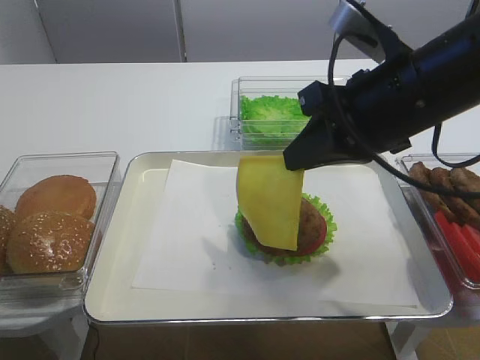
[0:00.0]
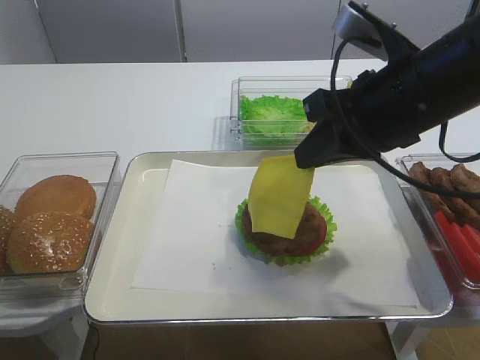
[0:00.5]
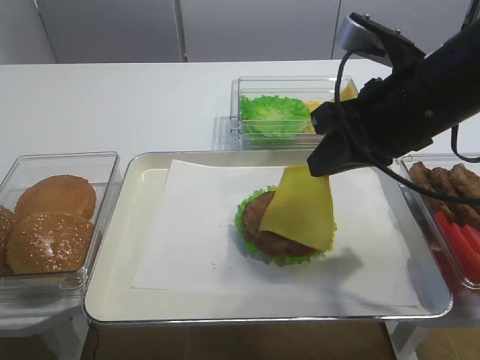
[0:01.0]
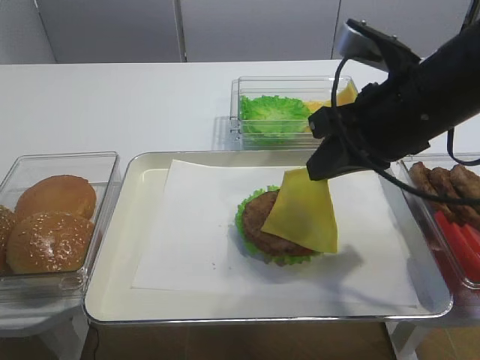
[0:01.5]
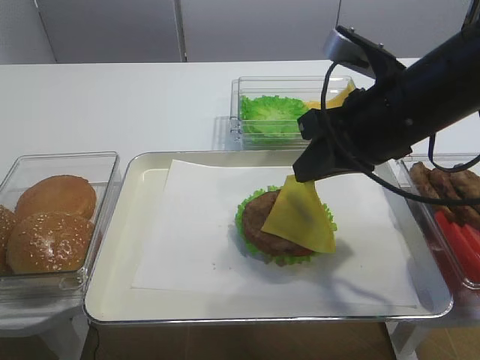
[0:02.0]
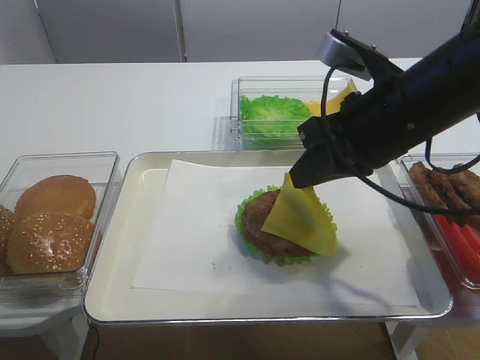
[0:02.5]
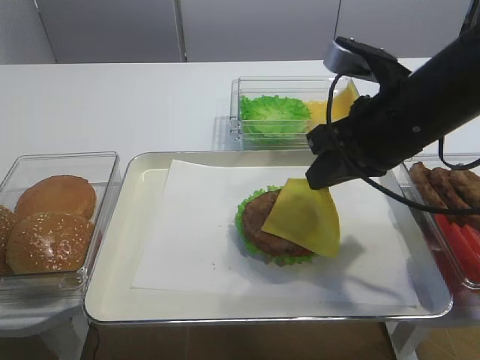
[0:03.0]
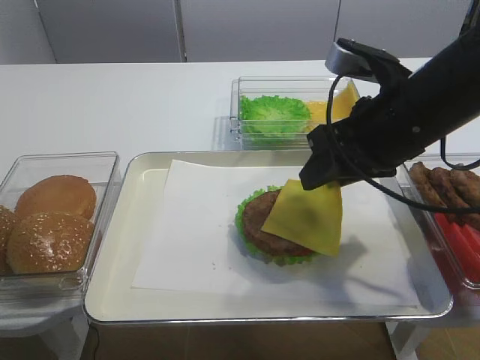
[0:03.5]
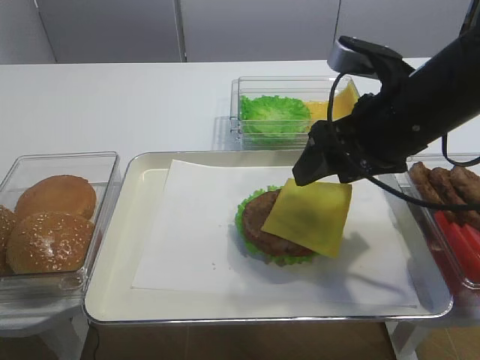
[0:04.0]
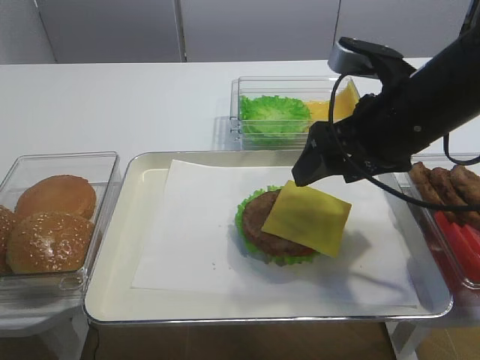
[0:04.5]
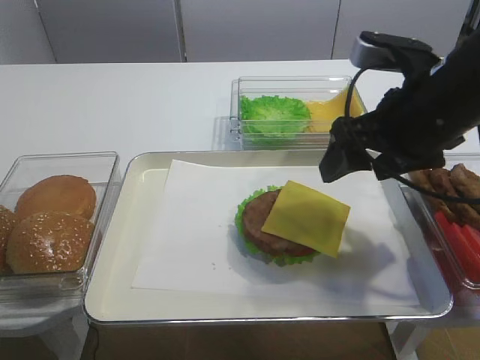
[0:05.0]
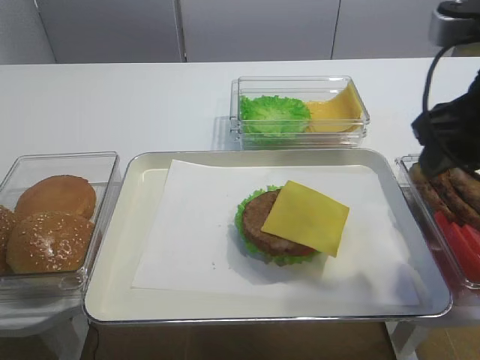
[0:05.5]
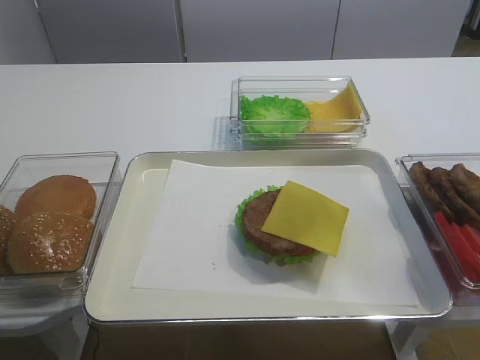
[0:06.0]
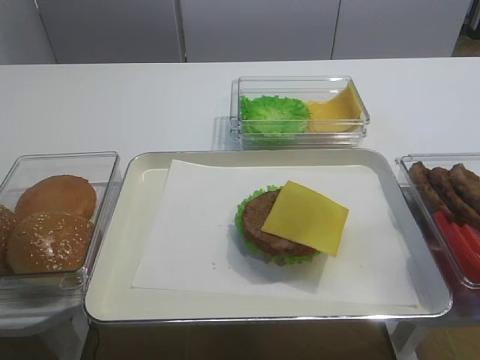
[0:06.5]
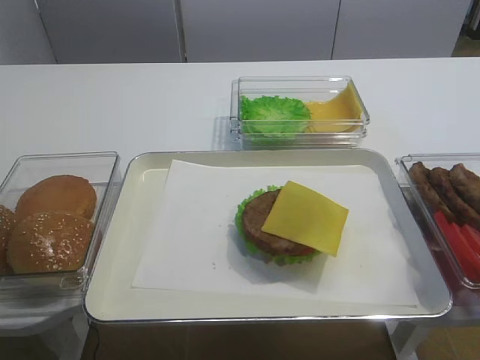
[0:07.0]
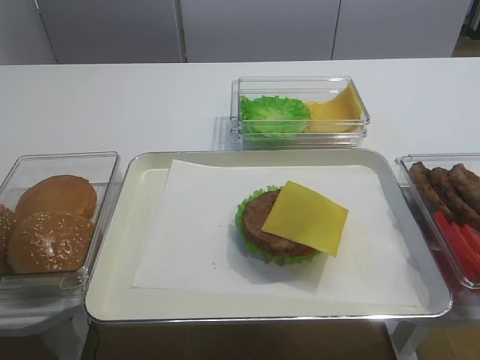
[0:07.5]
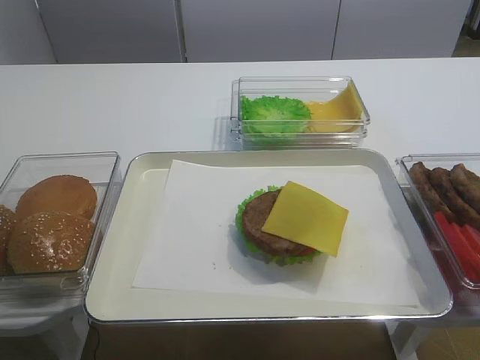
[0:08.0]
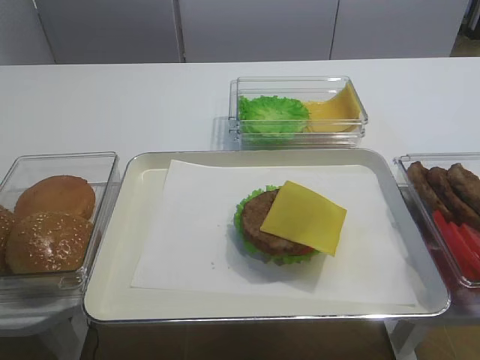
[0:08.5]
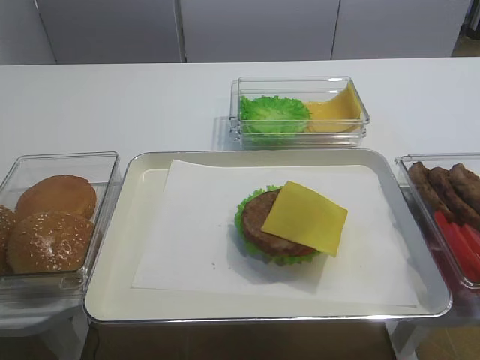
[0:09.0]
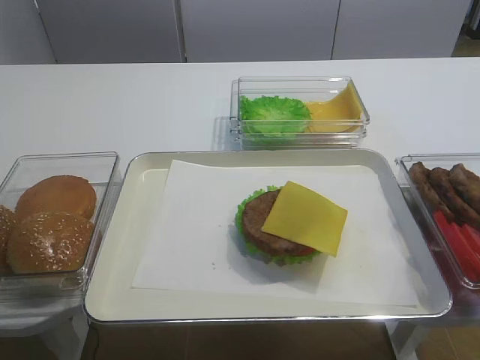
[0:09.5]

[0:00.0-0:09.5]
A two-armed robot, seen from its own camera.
Step, 0:00.0 to 0:04.0: Place the cheese slice on the cutlet with the right gripper.
0:00.0 to 0:02.0: There are only small adjustments of the grippers.
0:02.0 to 0:04.0: The right gripper opens.
0:04.0 to 0:05.5: The right gripper is displaced to the right by roughly 5 cm.
0:05.5 to 0:07.5: The right gripper moves backward, some 25 cm.

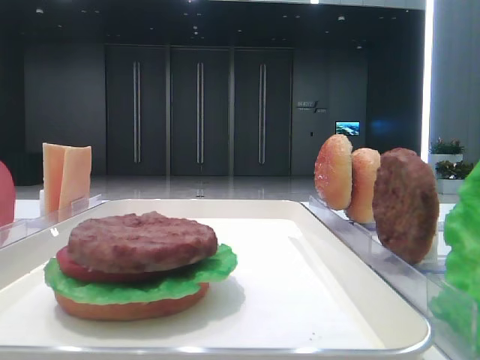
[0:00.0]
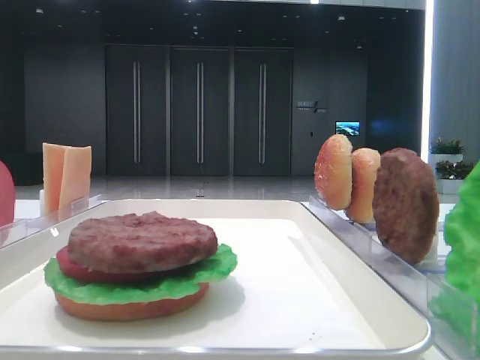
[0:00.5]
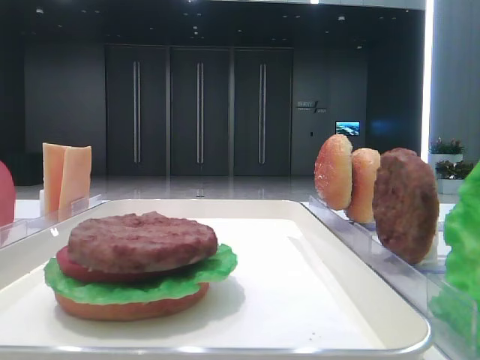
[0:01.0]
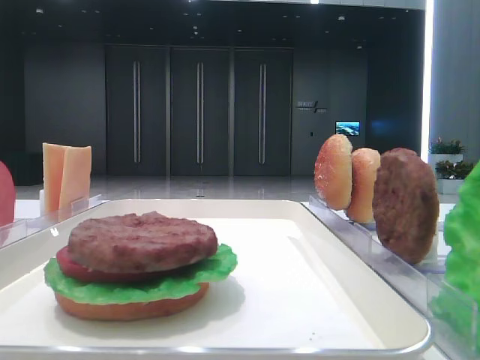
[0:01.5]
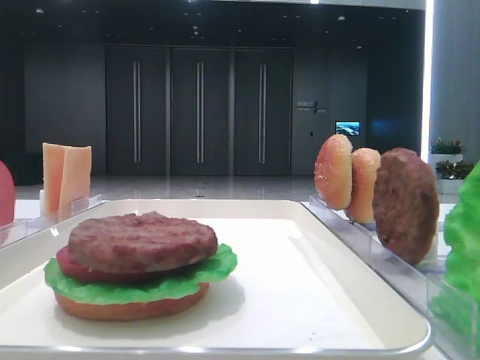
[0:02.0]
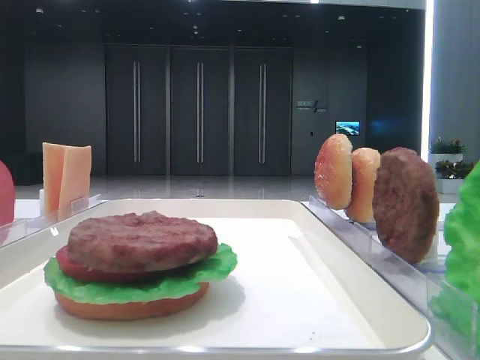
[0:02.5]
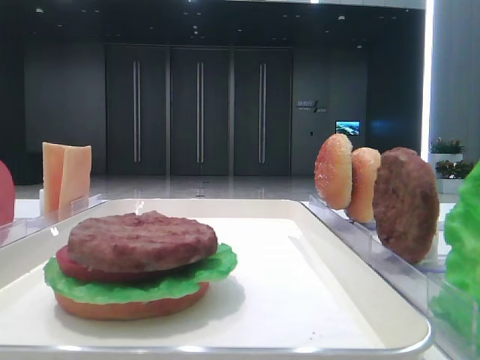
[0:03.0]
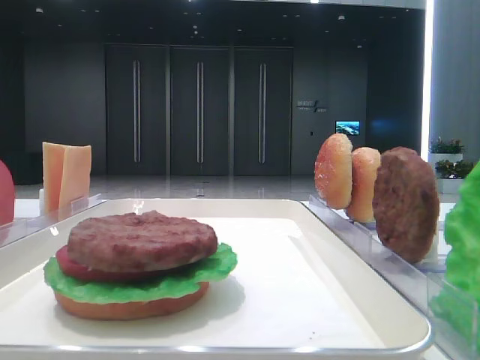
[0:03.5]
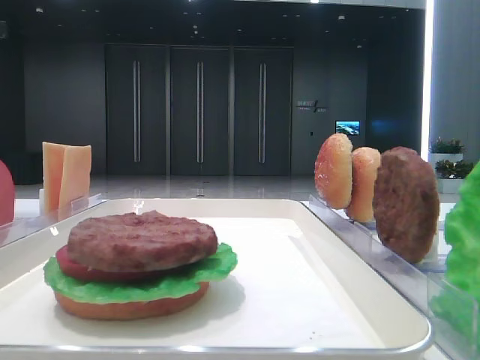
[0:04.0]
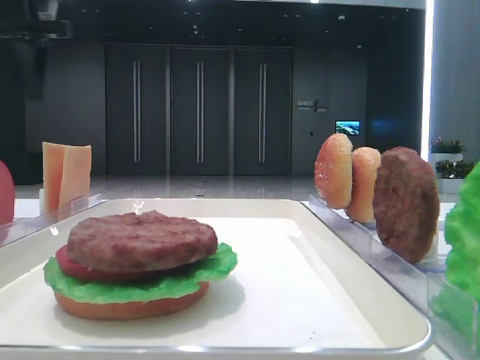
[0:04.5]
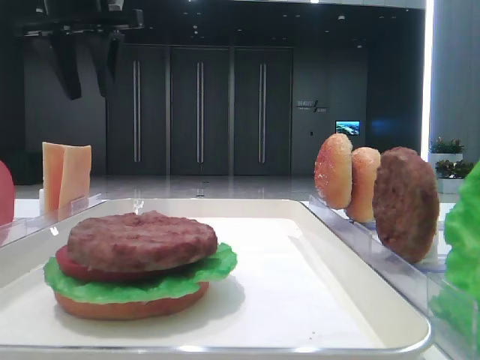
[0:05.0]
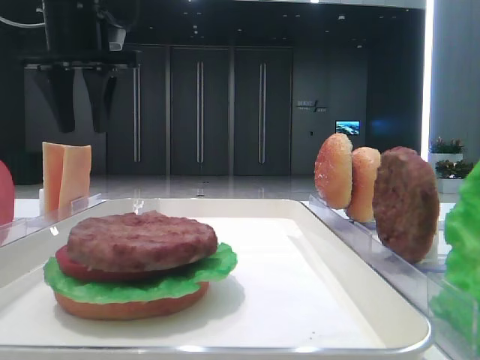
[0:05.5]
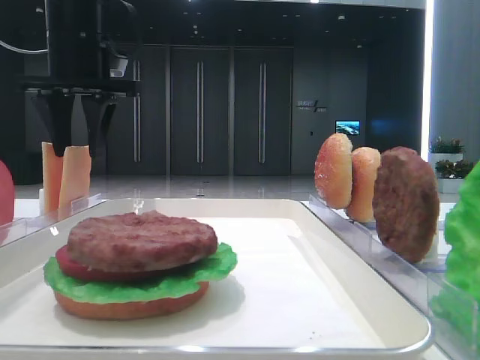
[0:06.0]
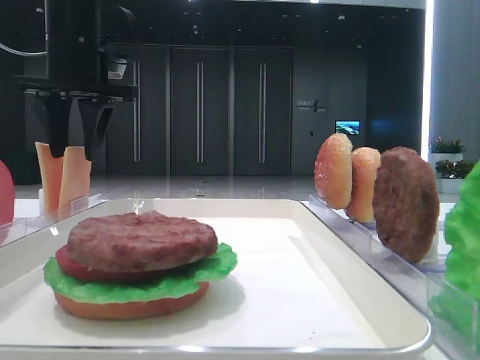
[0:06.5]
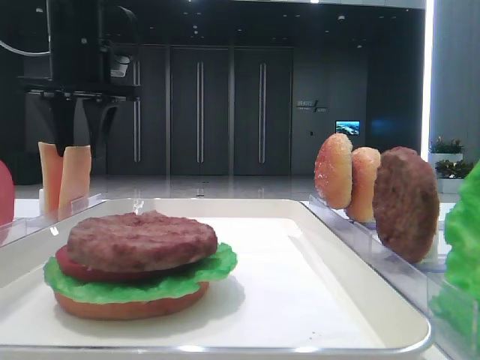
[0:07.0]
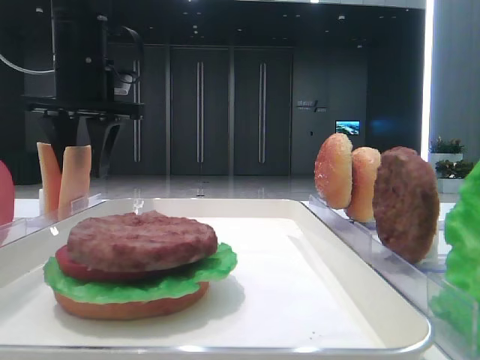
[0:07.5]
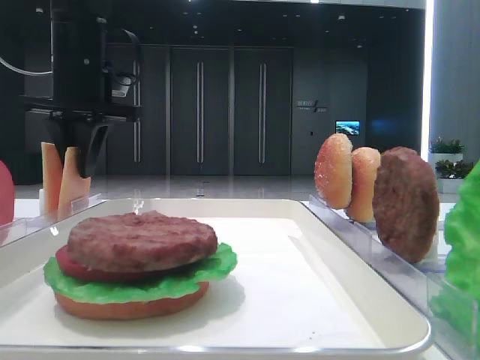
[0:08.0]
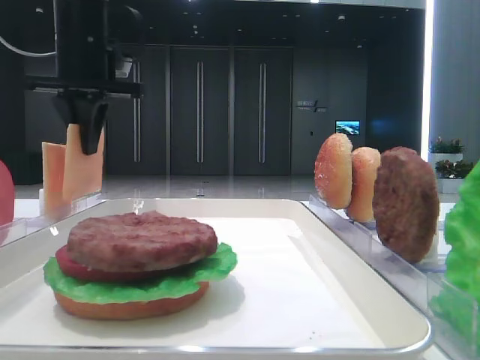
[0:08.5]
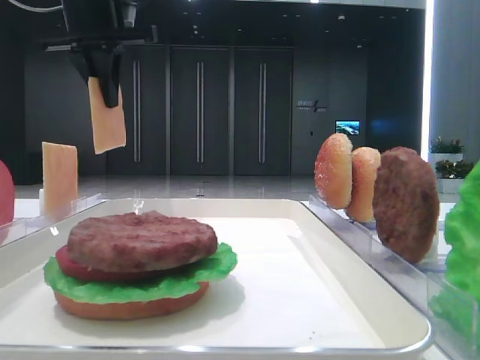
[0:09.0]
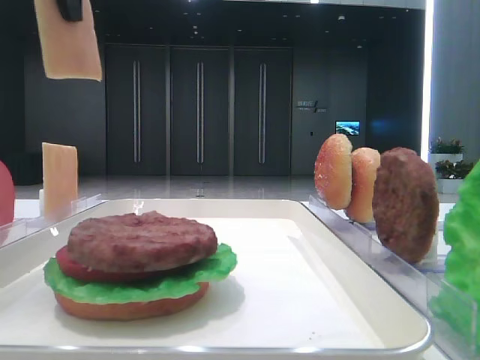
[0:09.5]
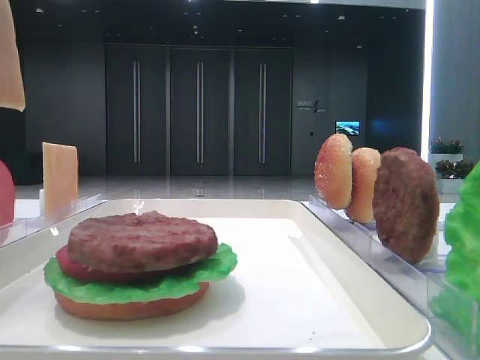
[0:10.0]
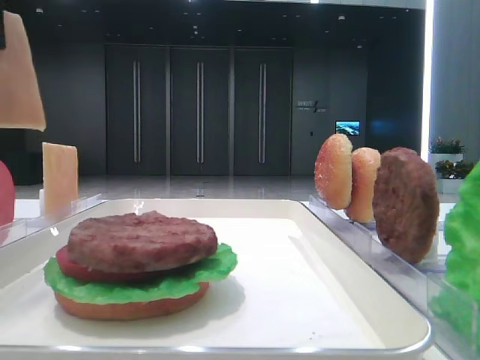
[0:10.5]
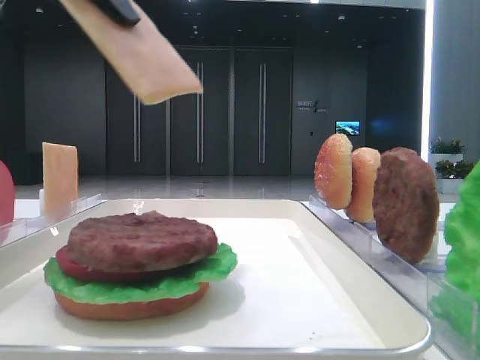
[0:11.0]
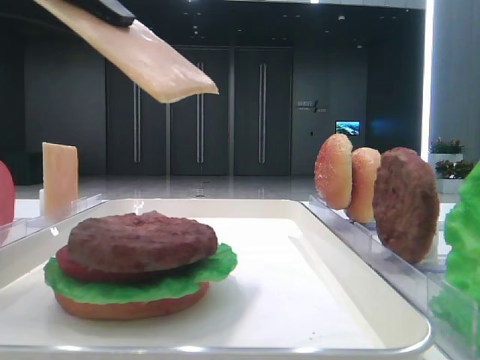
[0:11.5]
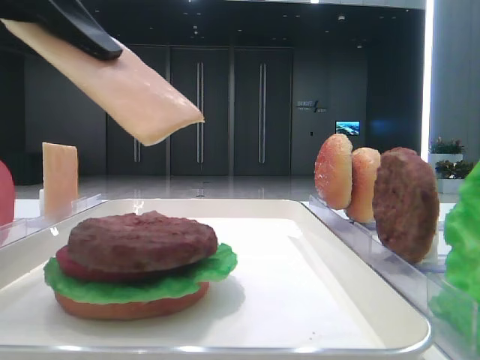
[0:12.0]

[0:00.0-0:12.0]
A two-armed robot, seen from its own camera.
Step, 0:00.0 to 0:08.0: Pick up the cheese slice with the left hand.
0:02.0 to 0:04.0: The left gripper is displaced forward by roughly 40 cm.
0:04.0 to 0:06.0: The left gripper travels to the right by about 15 cm.
0:06.0 to 0:08.0: The left gripper closes its fingers.
0:08.0 to 0:10.0: The left gripper travels backward and upward by roughly 20 cm.
0:10.0 to 0:12.0: The left gripper shifts approximately 10 cm downward.

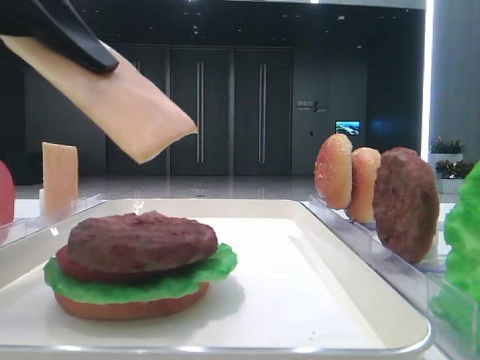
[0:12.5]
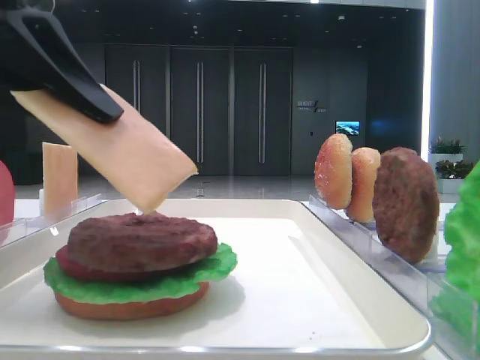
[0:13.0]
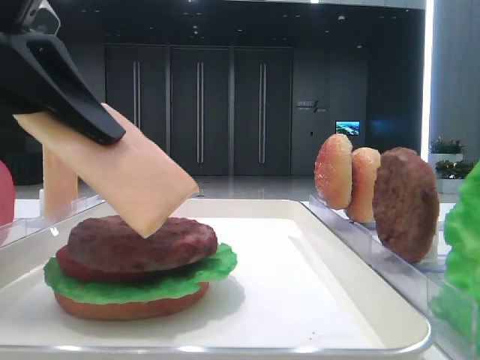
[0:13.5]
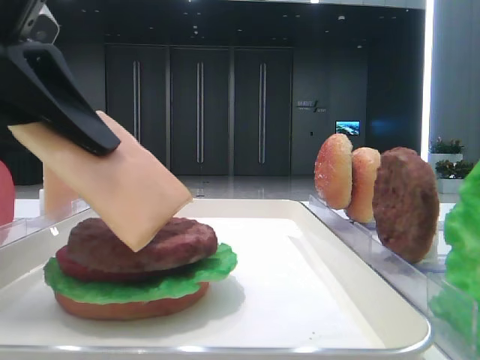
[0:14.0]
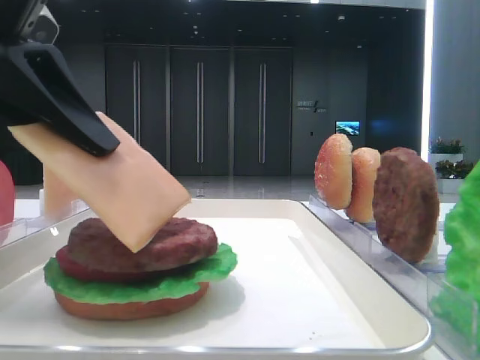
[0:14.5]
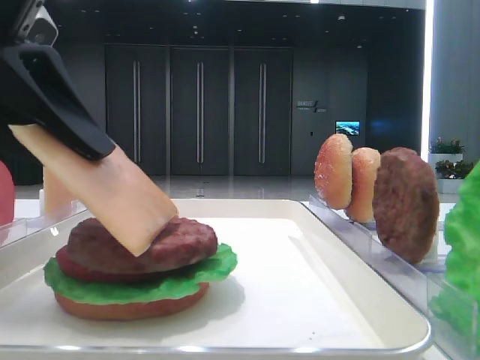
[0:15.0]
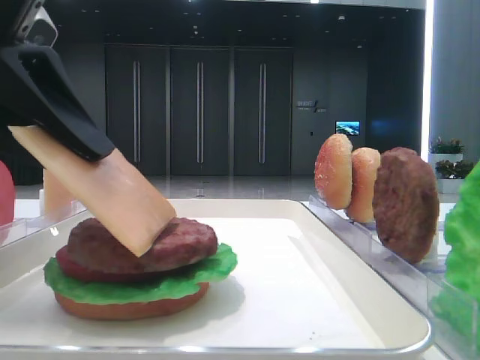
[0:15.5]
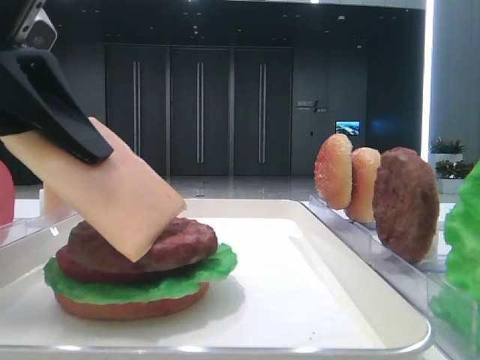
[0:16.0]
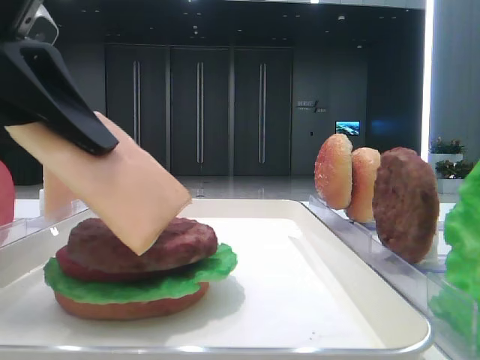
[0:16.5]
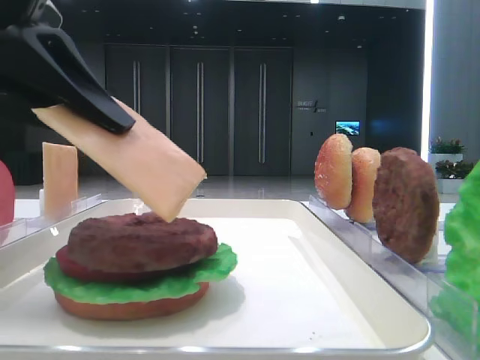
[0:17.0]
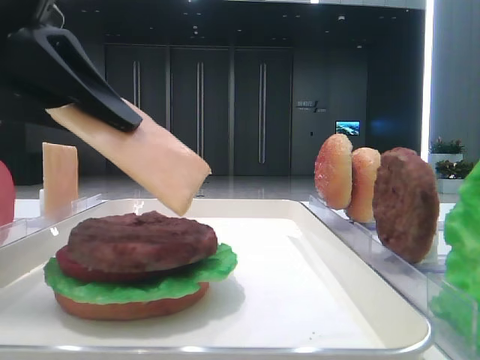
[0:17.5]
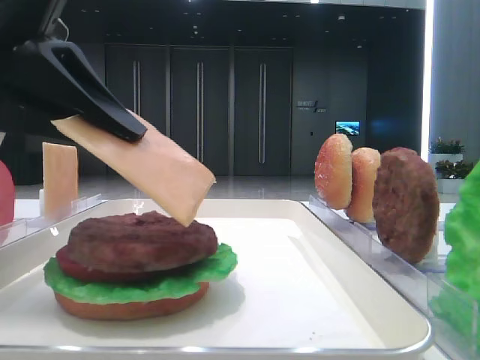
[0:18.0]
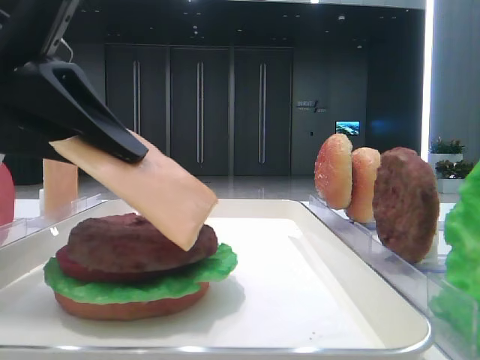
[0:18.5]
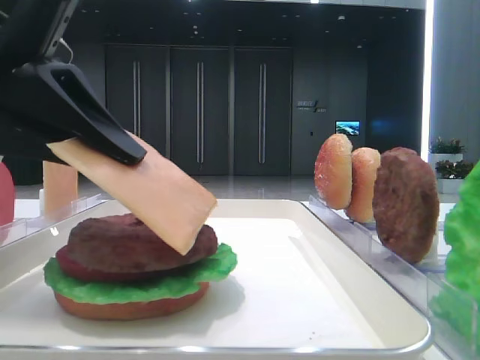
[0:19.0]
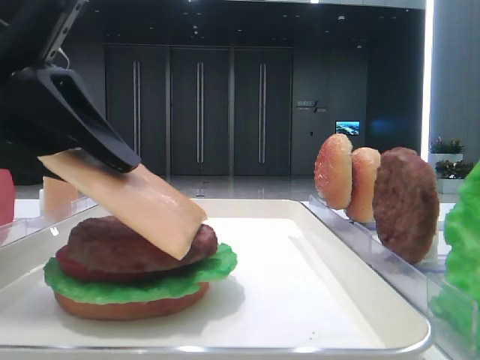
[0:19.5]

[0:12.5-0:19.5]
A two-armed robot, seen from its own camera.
0:12.5 to 0:14.5: The grippers make only small movements.
0:14.5 to 0:16.0: Both grippers stay about where they are.
0:16.0 to 0:19.5: The grippers stay close to where they were, moving slightly.
